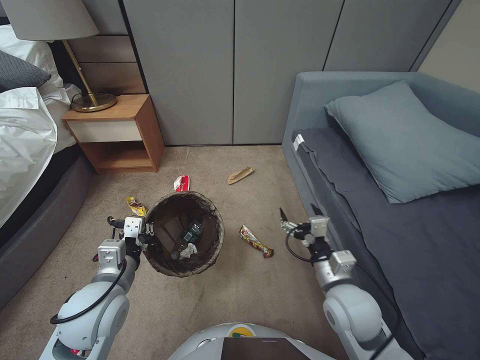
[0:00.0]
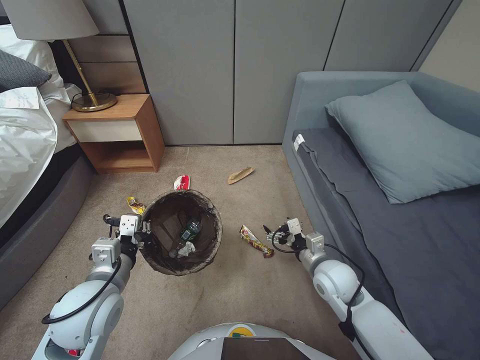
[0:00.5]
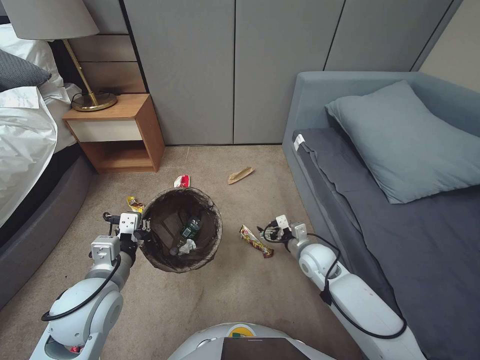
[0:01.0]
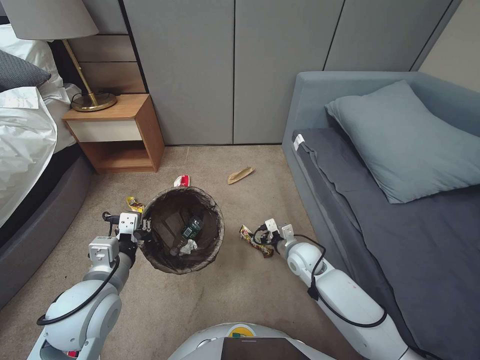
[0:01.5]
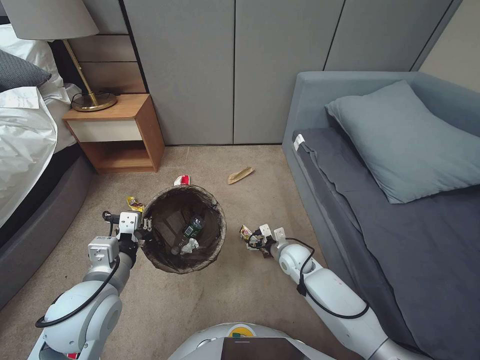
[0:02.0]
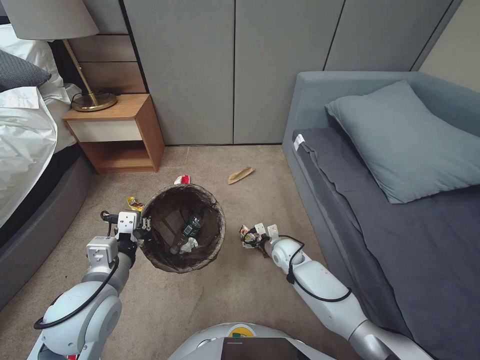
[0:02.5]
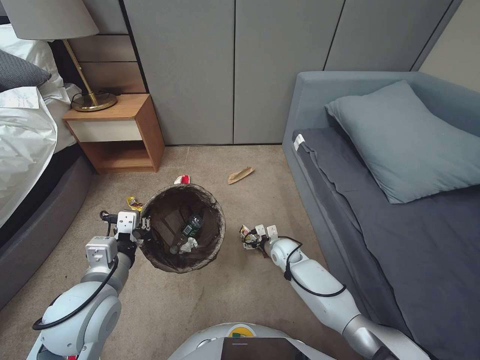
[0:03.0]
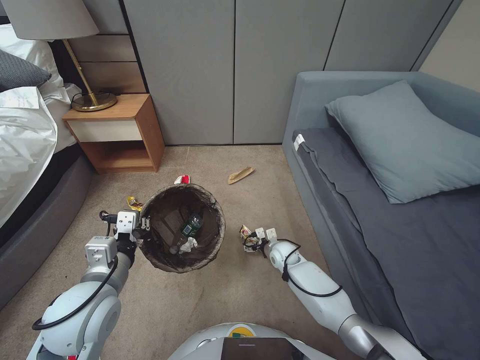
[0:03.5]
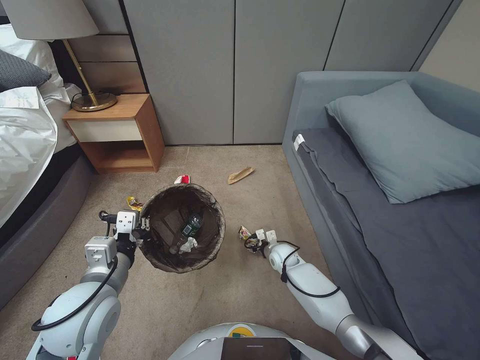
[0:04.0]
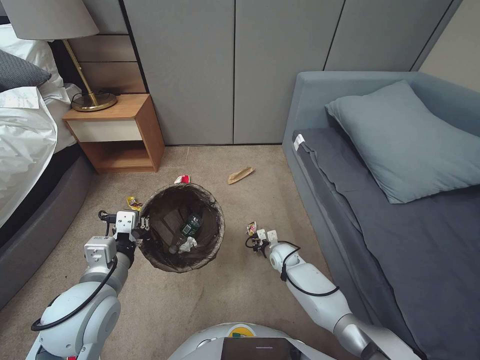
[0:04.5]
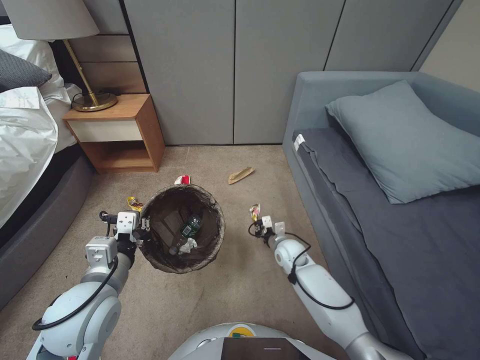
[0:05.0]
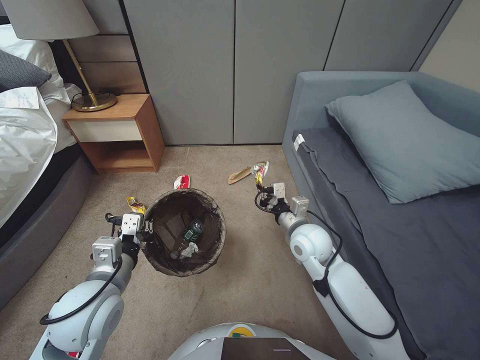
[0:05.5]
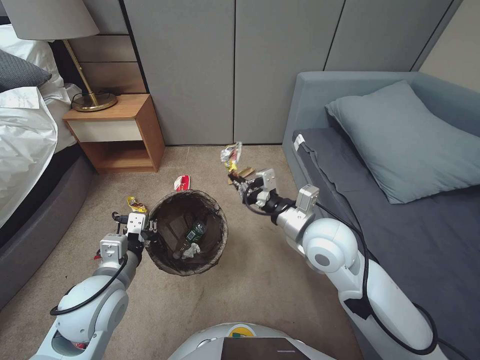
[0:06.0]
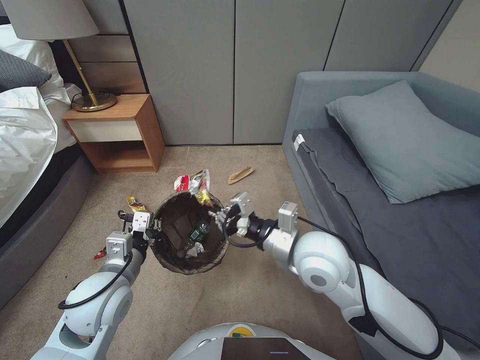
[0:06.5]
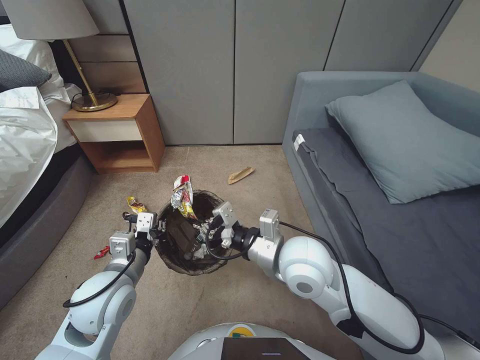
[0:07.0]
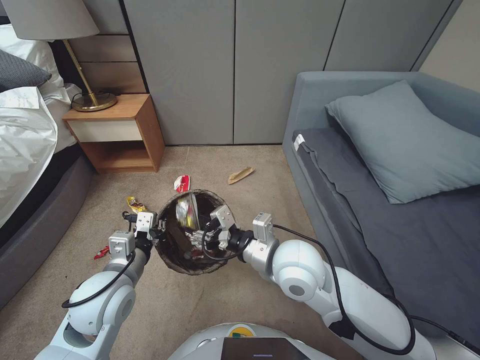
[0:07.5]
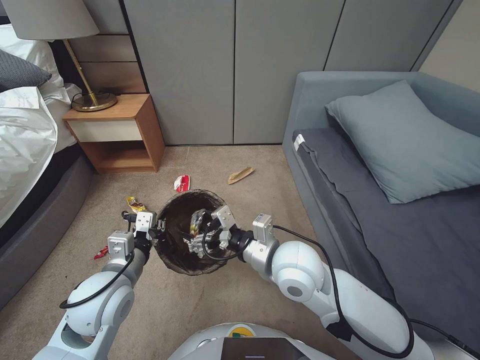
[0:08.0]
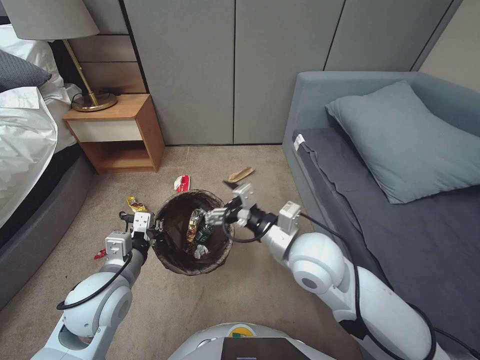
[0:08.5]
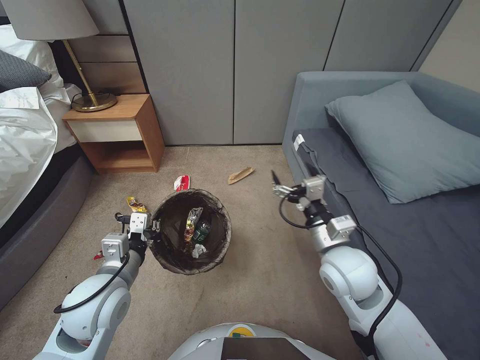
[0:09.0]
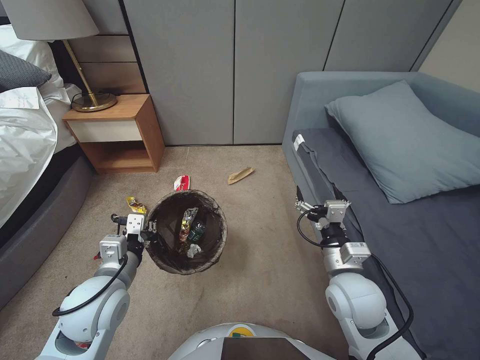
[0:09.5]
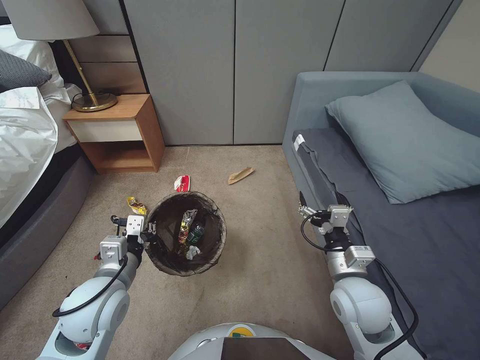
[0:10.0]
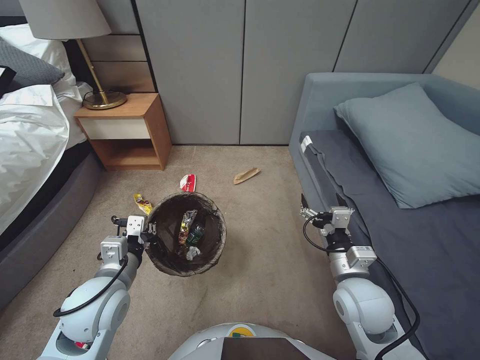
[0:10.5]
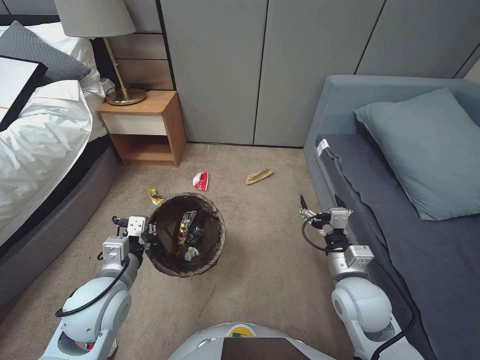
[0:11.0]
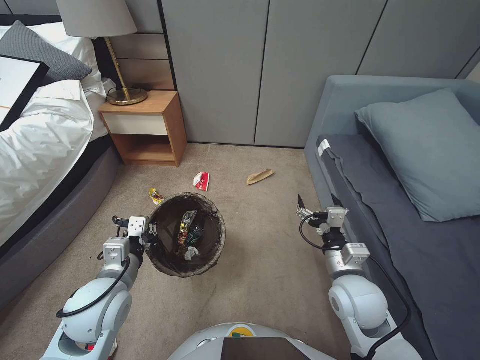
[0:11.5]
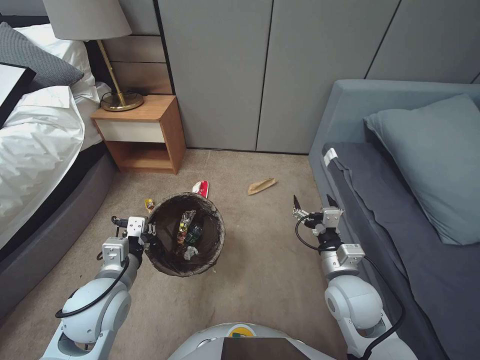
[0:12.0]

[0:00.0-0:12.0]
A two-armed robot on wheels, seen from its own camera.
Task of the whole recording: Pick up the trash bin, then pick up the garbage from the floor and place it into the trash bin.
0:00.0 to 0:02.0: The right gripper shifts approximately 20 cm forward and downward.
0:02.0 to 0:04.0: The right gripper travels downward by about 10 cm, and closes its fingers.
0:04.0 to 0:06.0: The right gripper goes roughly 35 cm upward, and closes.
0:06.0 to 0:08.0: The right gripper is displaced to the left by some 5 cm, and opens its fingers.
0:08.0 to 0:10.0: The right gripper moves to the right and downward, some 15 cm.

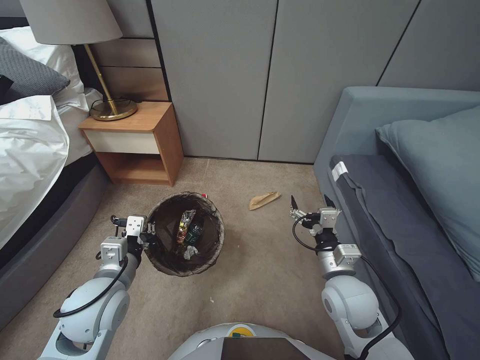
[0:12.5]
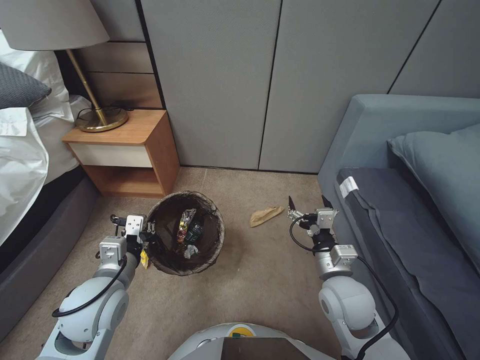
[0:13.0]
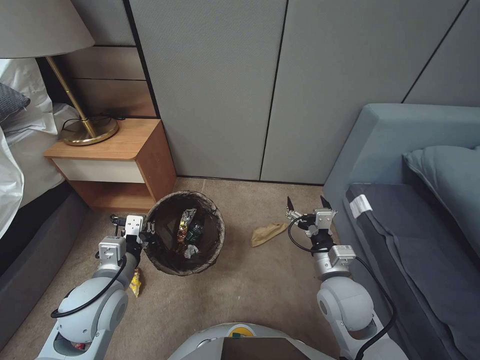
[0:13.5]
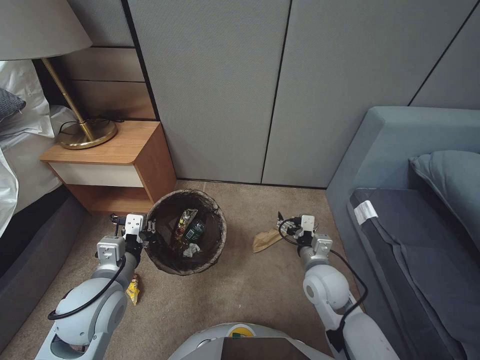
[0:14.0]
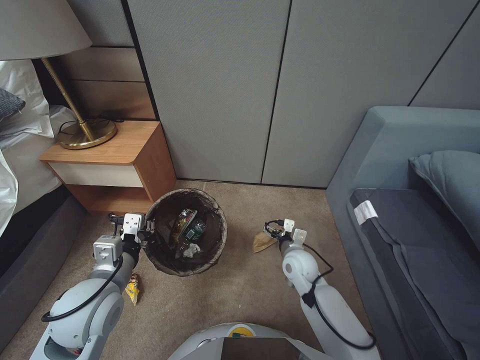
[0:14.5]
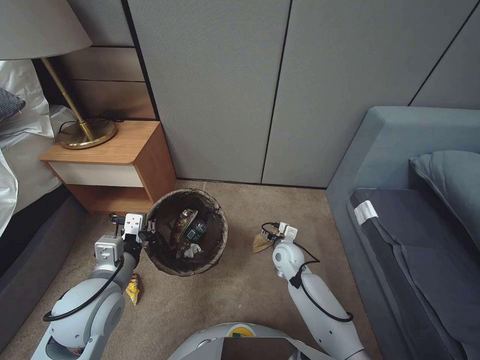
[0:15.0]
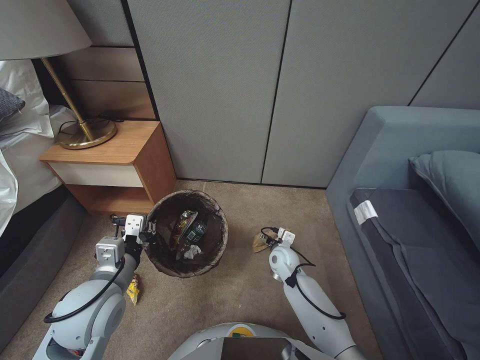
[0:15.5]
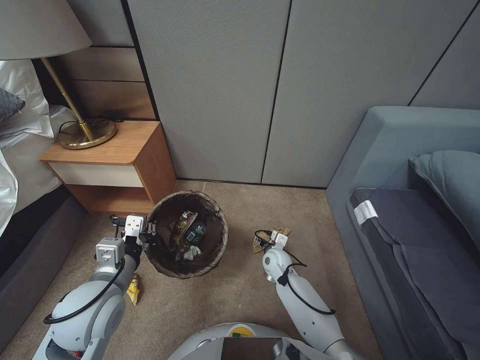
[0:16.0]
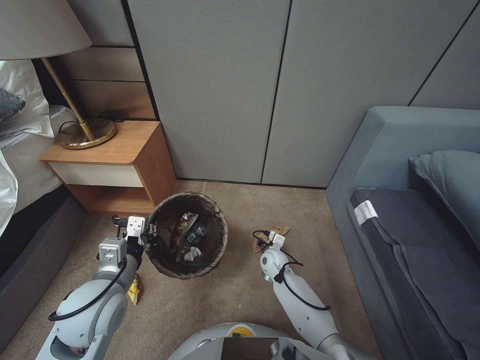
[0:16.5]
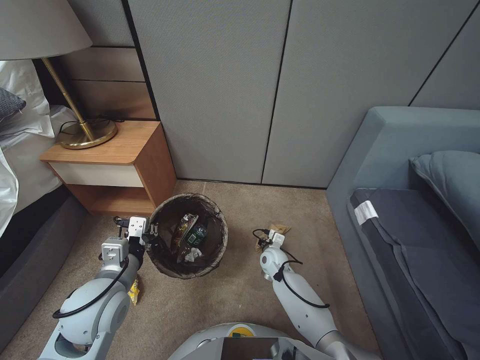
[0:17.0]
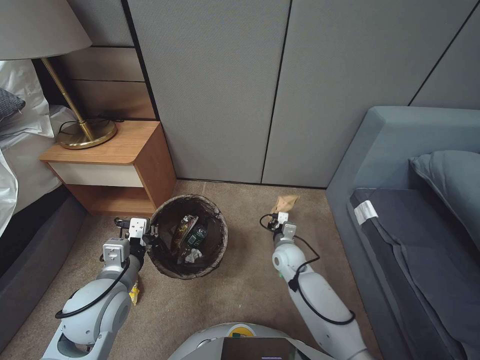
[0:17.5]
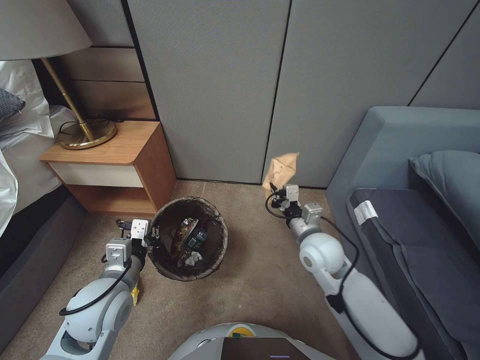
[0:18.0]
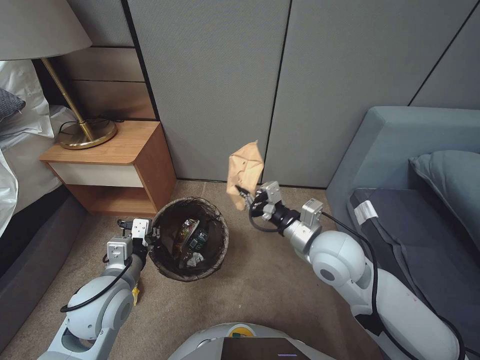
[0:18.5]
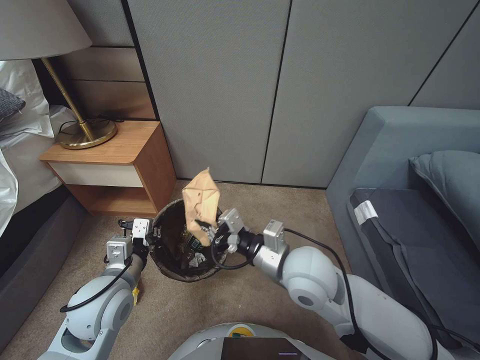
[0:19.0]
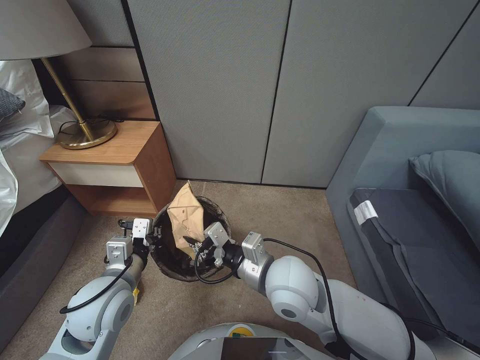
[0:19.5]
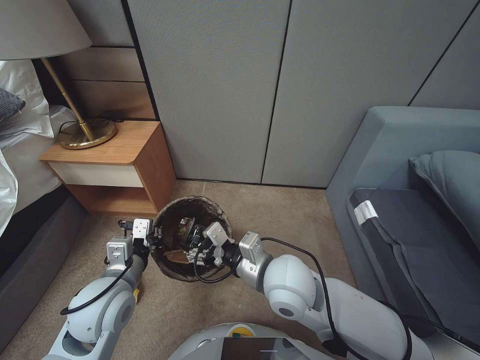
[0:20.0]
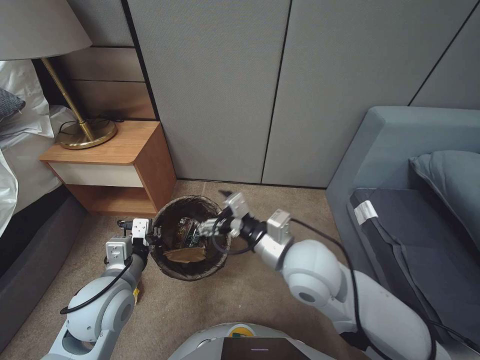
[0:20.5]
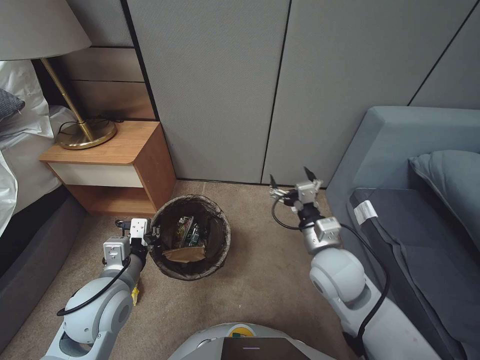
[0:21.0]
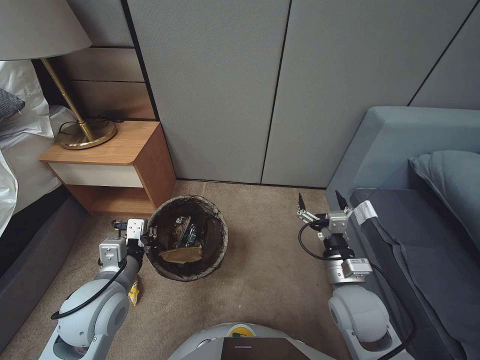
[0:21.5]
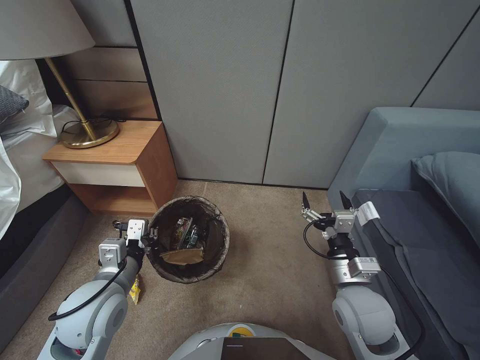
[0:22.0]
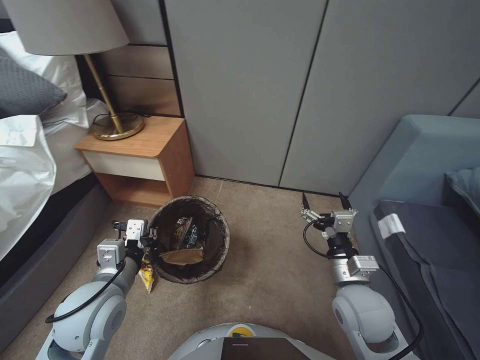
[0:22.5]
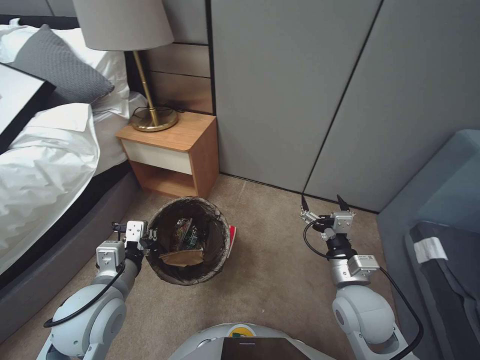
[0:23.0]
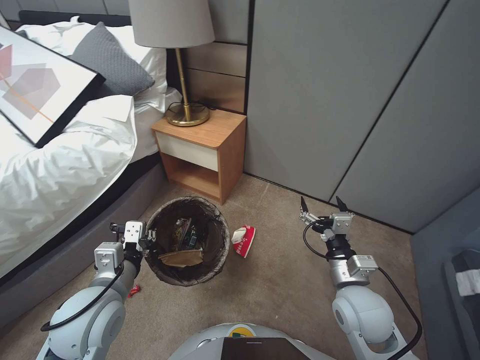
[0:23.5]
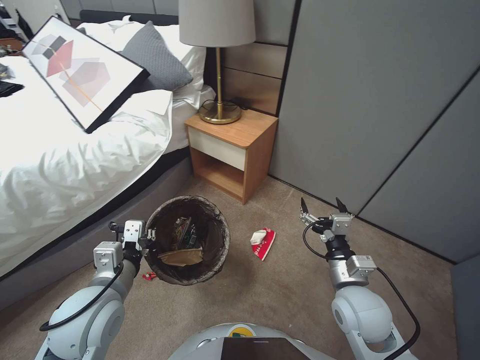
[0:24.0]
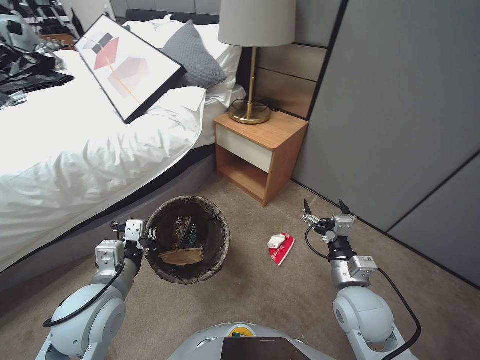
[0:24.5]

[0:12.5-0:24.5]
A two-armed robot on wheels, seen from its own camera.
Task of the whole recording: Pick up the trash bin, then pick up the garbage from the floor and place it into the trash bin.
0:12.5 to 0:14.5: The right gripper shifts approximately 15 cm downward and forward.
0:14.5 to 0:16.5: The right gripper travels downward, forward and to the left by about 15 cm.
0:16.5 to 0:18.5: The right gripper is displaced upward by roughly 30 cm, and closes up.
0:18.5 to 0:20.5: The right gripper is displaced to the left by approximately 10 cm, and opens up.
0:20.5 to 0:22.5: The right gripper moves to the right and downward, about 15 cm.

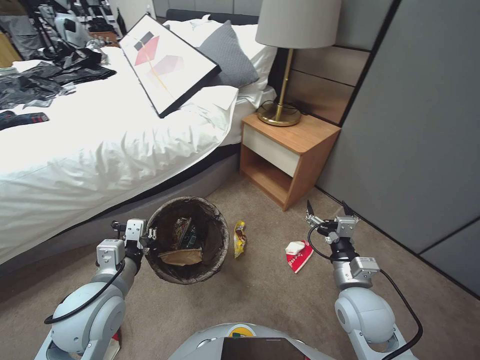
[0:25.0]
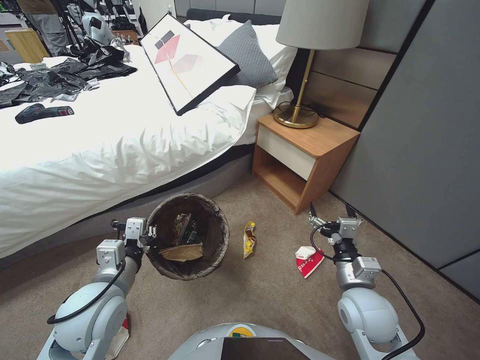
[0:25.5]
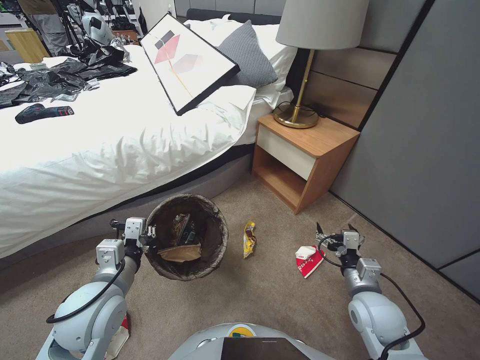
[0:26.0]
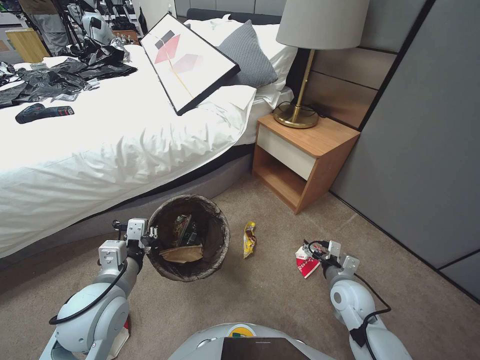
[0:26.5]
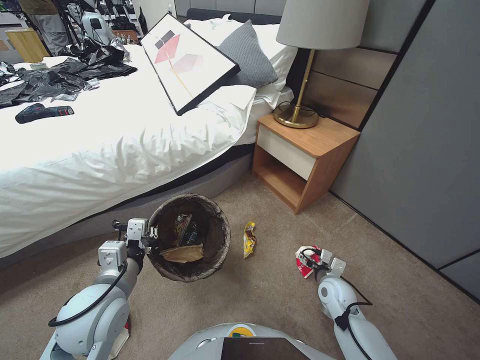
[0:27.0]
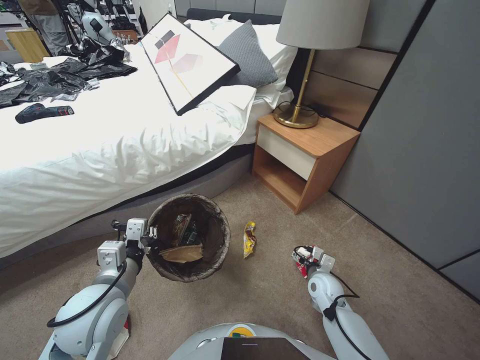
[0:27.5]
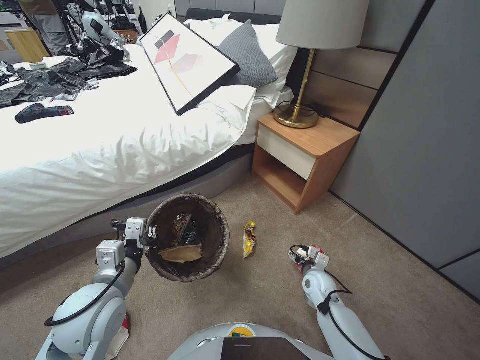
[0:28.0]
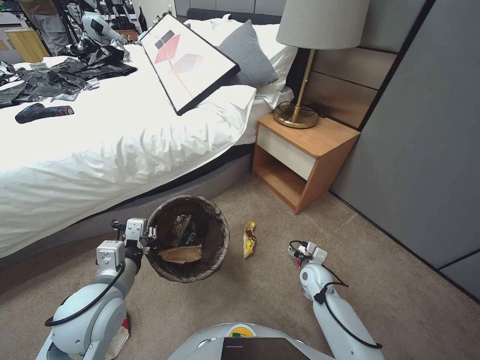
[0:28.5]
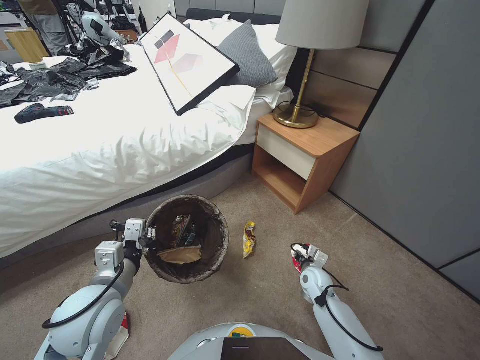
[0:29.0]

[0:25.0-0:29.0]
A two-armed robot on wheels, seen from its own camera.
Task of the whole recording: Pick up the trash bin, then pick up the garbage from the floor and place it into the trash bin.
0:25.0 to 0:27.0: The right gripper shifts some 15 cm downward and forward.
0:27.0 to 0:29.0: The right gripper changes place by about 5 cm, and closes.
